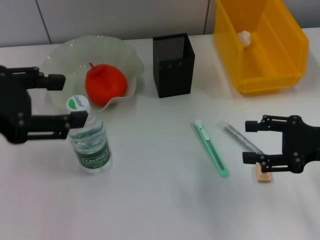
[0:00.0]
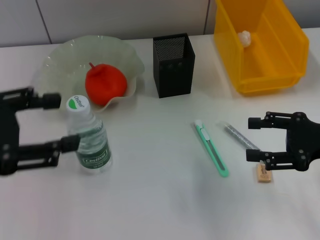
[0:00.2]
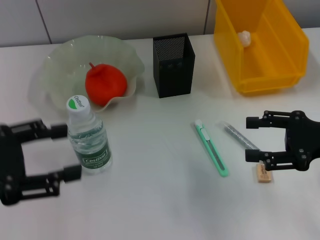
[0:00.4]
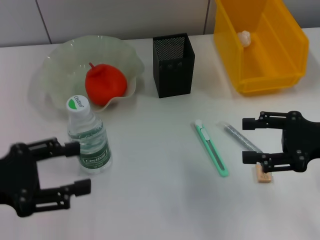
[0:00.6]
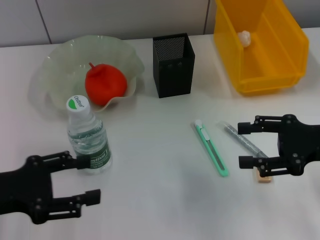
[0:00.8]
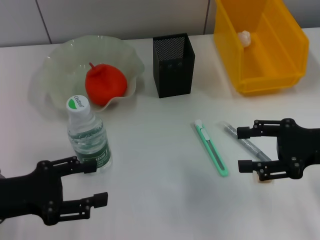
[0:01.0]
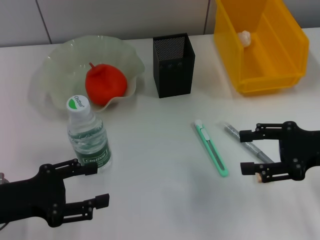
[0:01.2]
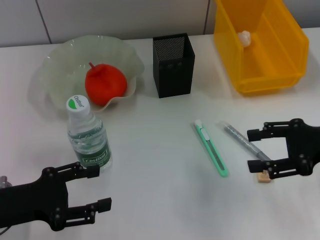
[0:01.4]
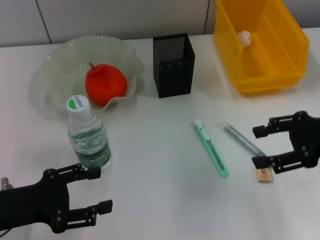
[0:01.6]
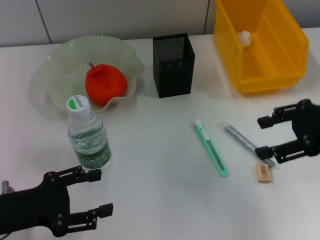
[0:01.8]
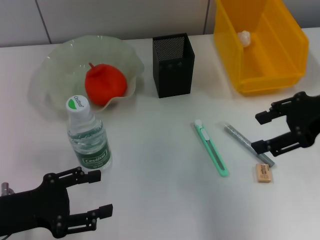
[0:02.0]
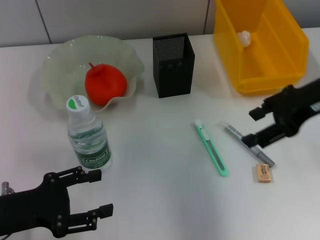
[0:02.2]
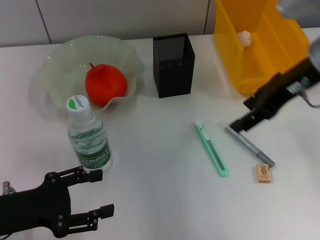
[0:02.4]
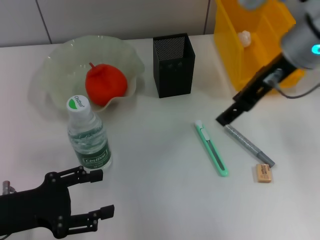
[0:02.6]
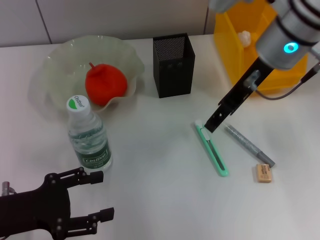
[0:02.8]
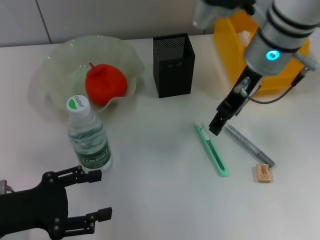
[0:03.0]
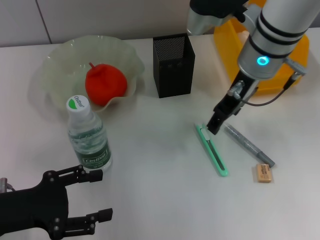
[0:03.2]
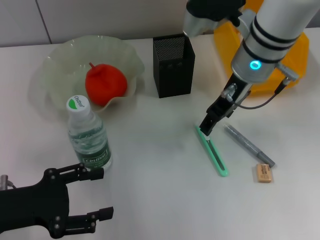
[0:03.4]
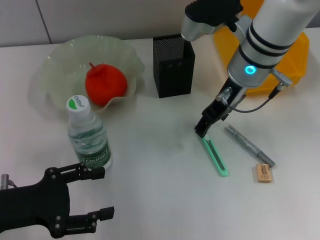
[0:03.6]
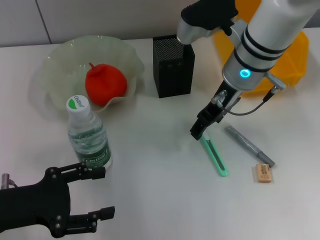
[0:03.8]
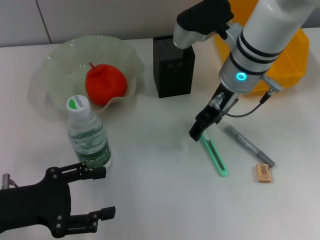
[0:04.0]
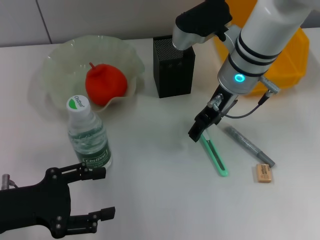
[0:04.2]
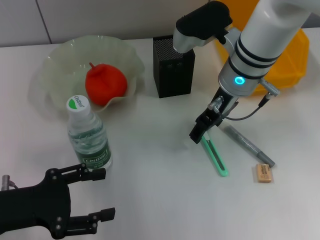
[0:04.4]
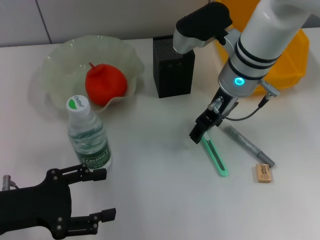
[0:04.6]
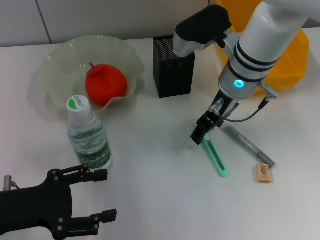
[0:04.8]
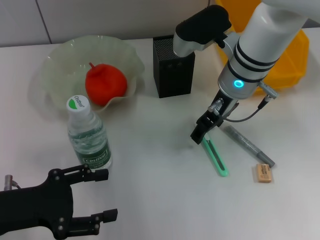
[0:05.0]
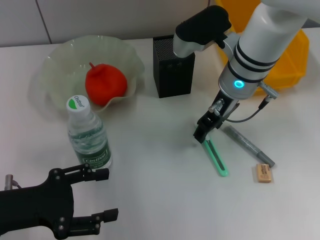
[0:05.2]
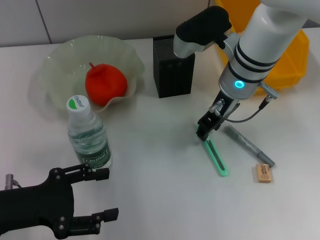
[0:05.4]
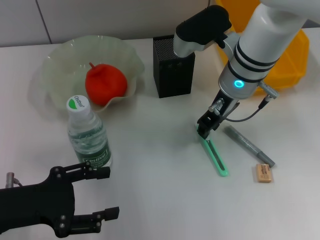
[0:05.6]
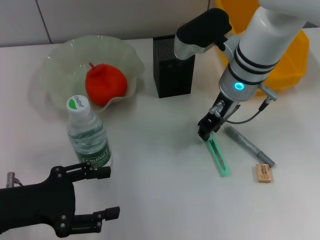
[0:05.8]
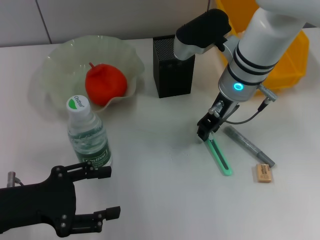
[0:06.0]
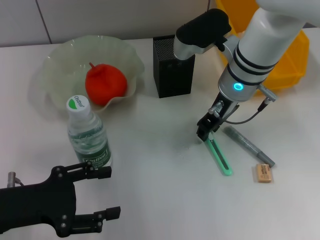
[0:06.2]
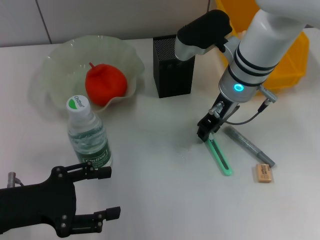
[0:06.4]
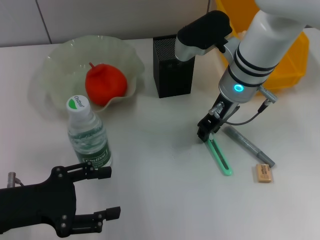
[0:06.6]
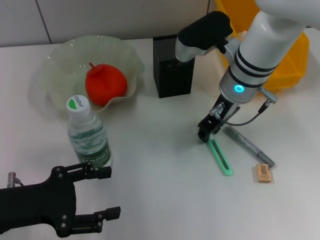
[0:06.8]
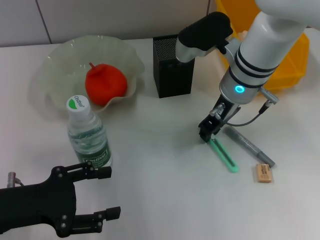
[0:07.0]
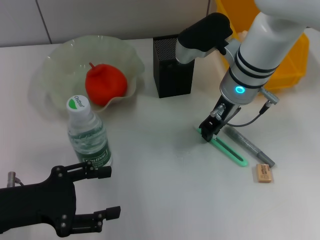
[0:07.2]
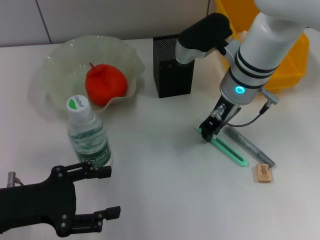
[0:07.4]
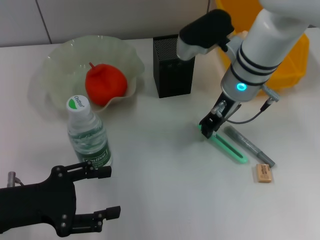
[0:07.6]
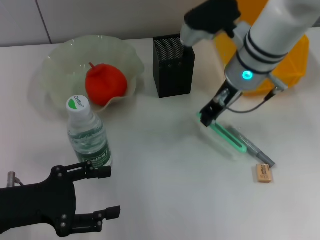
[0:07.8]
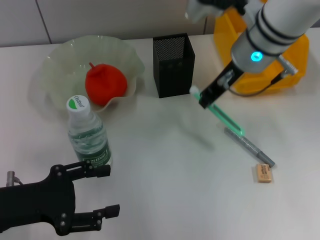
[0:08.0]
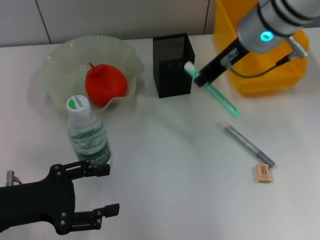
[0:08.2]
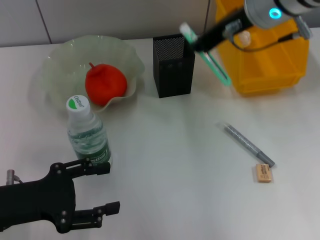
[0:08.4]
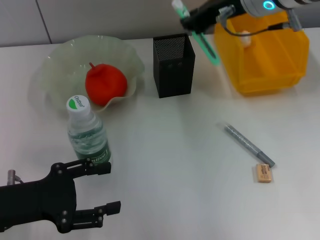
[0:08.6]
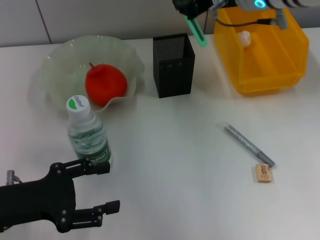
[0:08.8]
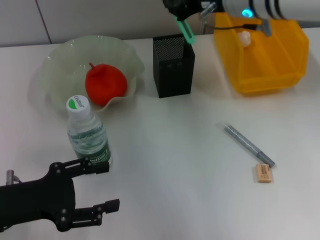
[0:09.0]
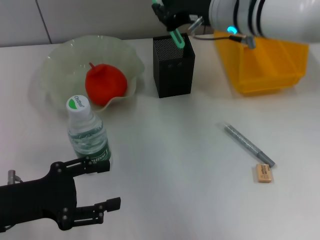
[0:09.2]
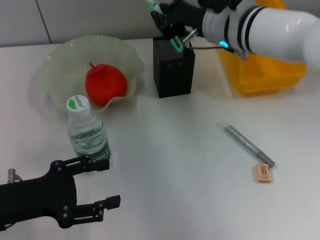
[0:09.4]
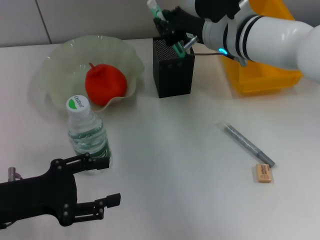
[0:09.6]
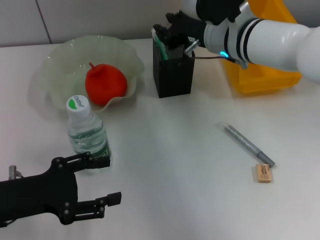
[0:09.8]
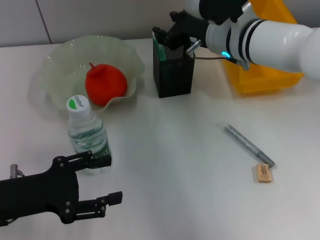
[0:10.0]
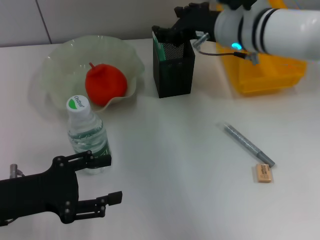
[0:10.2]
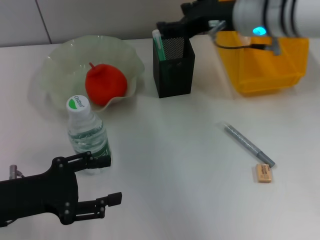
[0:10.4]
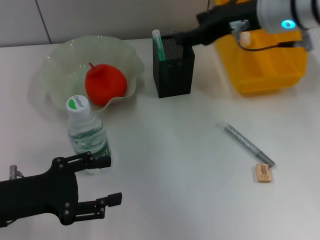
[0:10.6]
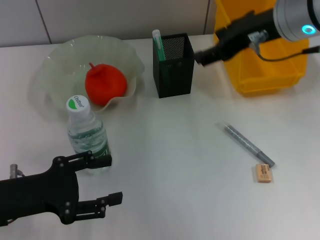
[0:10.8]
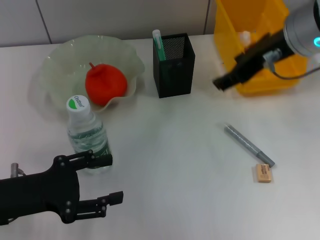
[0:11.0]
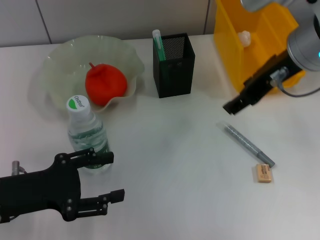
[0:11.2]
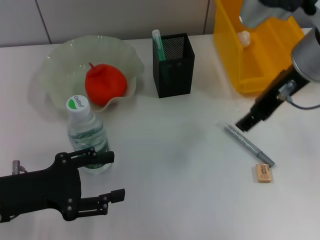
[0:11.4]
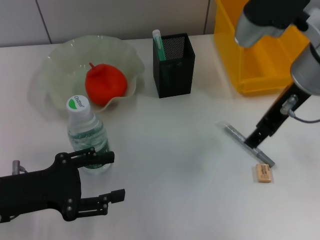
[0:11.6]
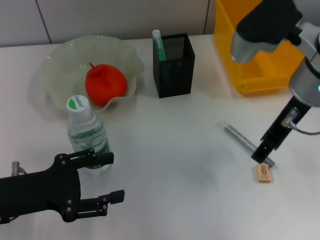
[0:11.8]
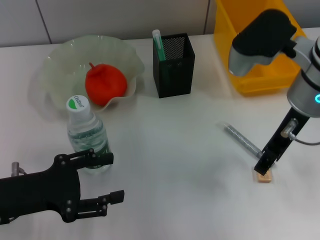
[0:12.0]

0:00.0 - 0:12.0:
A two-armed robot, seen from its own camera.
Step, 0:00.0 - 0:07.2: Grab the blue utility knife with the right hand.
Step, 0:07.4 - 0:10.4: Place the blue utility knife into the pen holder with the right hand.
0:00.0 - 0:01.6: The right gripper heads upward, covering approximately 5 cm; the left gripper is displaced downward by about 20 cm.
0:01.6 - 0:03.0: The right gripper moves to the left and forward, roughly 20 cm.
0:03.0 - 0:04.4: The right gripper is displaced downward by approximately 5 cm.
0:04.4 - 0:06.0: The right gripper closes up.
0:06.0 - 0:07.6: Both grippers stay about where they are.
0:07.6 - 0:09.0: The right gripper moves upward, about 10 cm.
0:09.0 - 0:10.4: The right gripper opens its fingers.
0:10.4 - 0:12.0: The right gripper shifts approximately 5 cm backward.

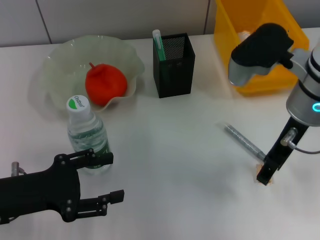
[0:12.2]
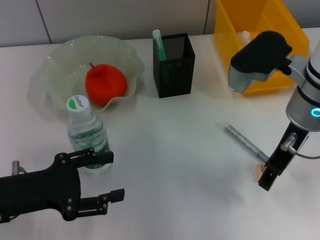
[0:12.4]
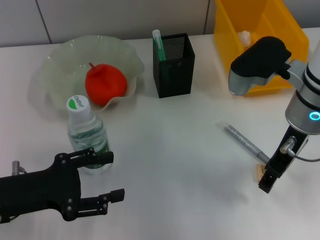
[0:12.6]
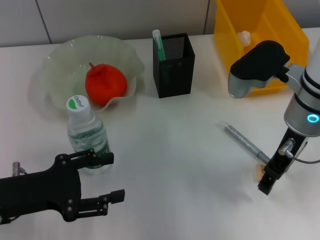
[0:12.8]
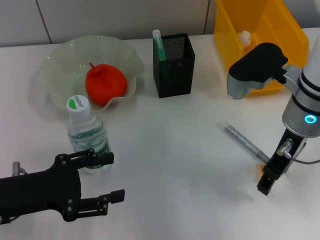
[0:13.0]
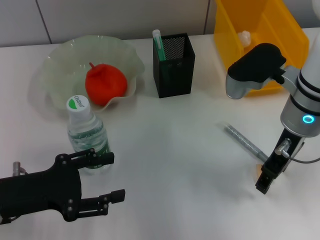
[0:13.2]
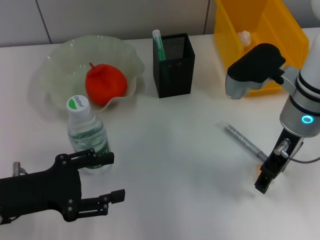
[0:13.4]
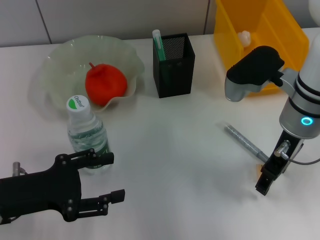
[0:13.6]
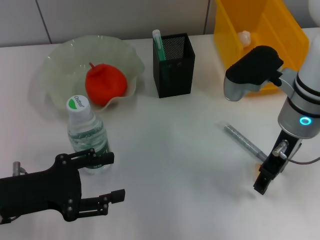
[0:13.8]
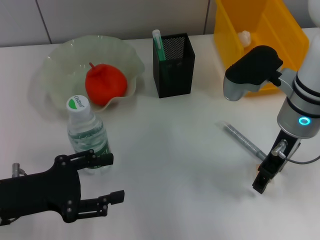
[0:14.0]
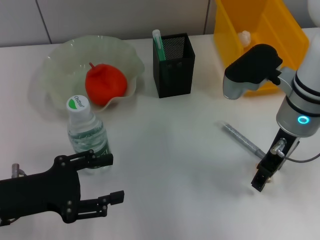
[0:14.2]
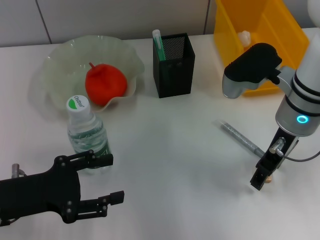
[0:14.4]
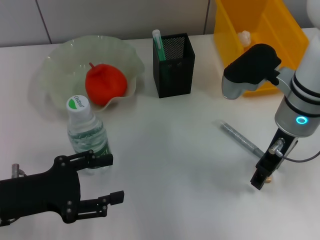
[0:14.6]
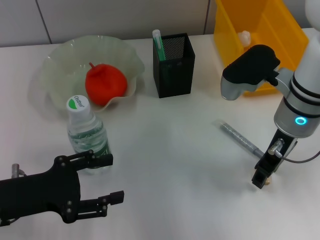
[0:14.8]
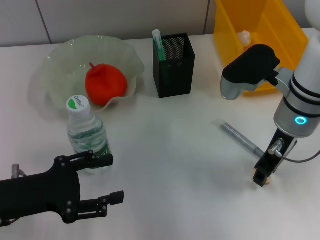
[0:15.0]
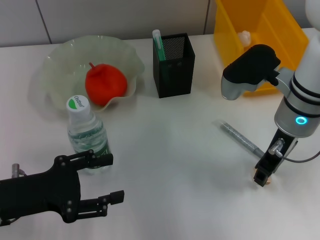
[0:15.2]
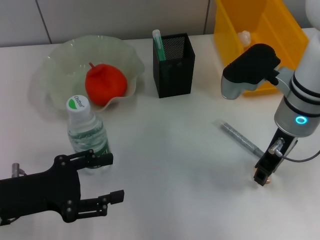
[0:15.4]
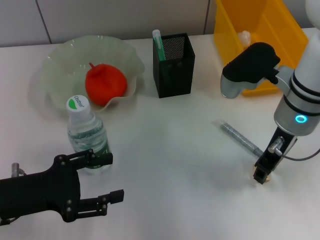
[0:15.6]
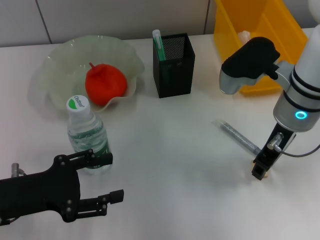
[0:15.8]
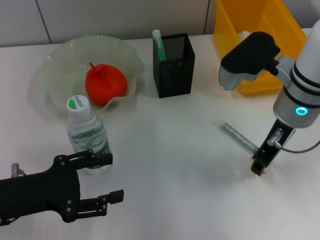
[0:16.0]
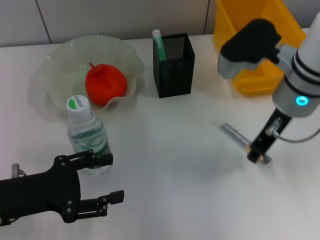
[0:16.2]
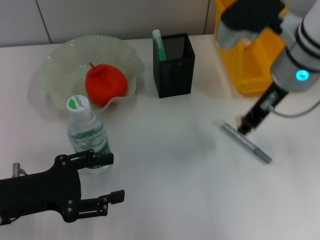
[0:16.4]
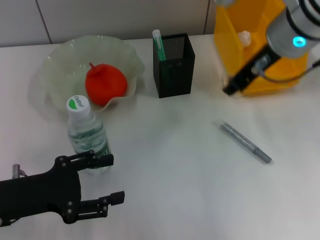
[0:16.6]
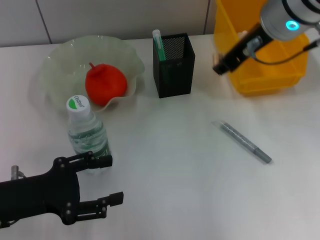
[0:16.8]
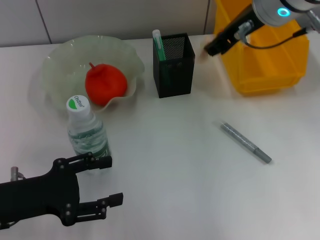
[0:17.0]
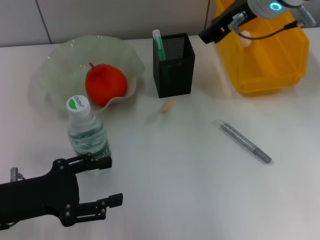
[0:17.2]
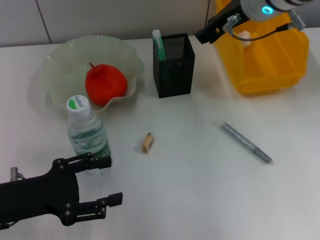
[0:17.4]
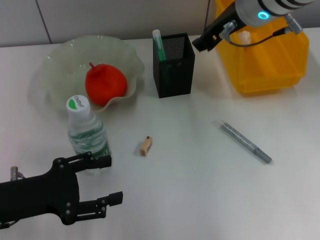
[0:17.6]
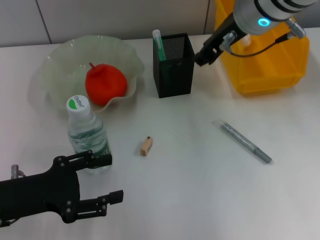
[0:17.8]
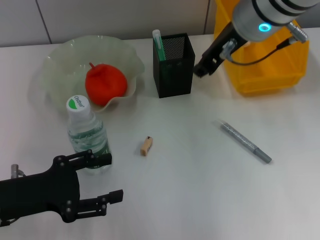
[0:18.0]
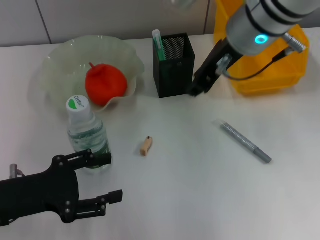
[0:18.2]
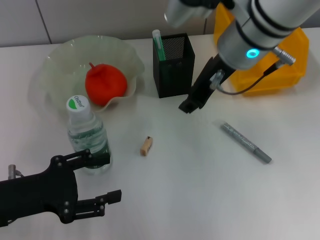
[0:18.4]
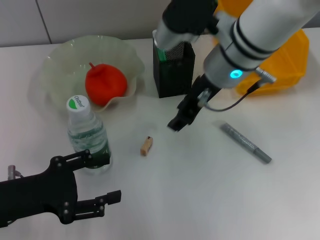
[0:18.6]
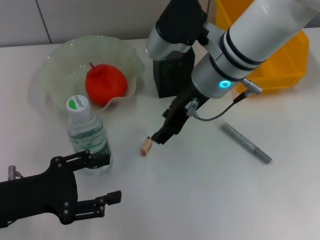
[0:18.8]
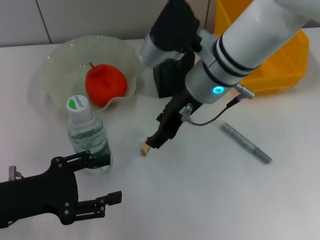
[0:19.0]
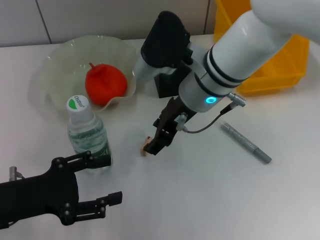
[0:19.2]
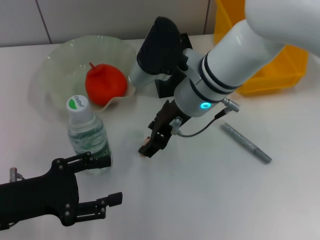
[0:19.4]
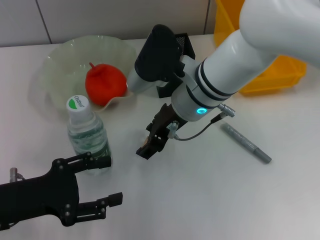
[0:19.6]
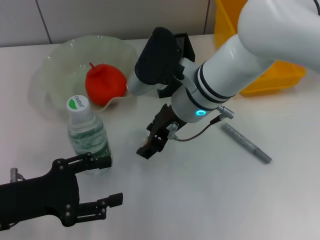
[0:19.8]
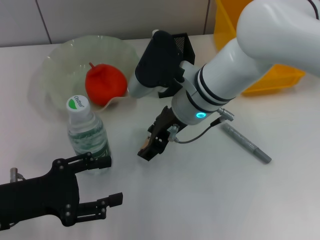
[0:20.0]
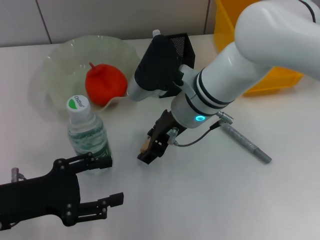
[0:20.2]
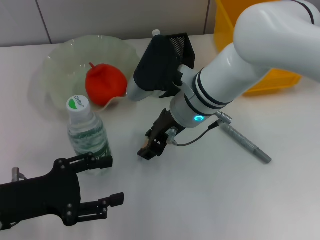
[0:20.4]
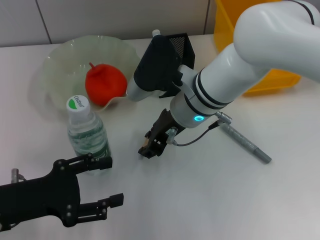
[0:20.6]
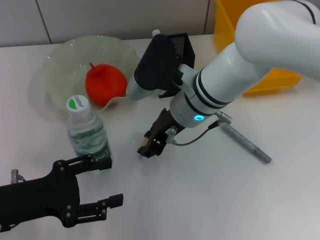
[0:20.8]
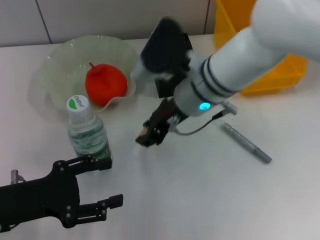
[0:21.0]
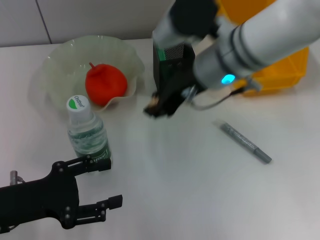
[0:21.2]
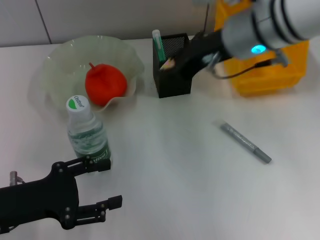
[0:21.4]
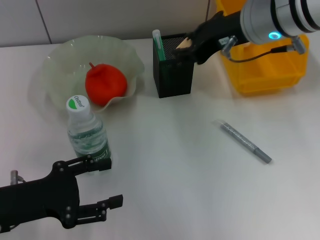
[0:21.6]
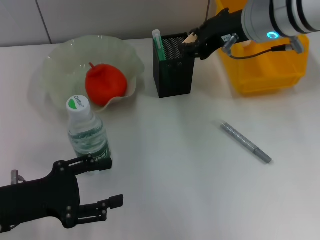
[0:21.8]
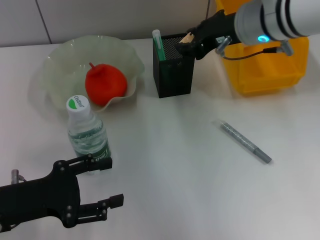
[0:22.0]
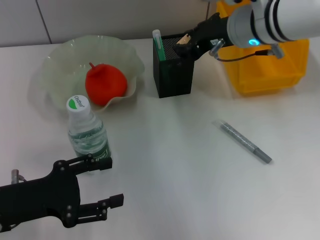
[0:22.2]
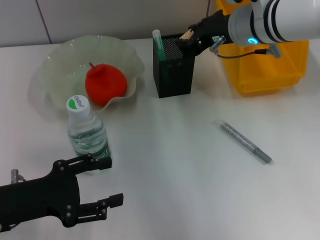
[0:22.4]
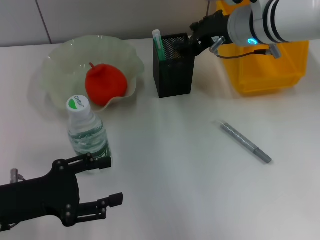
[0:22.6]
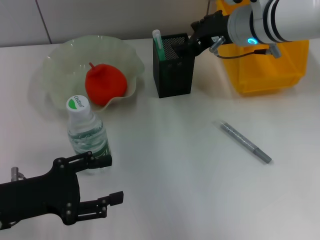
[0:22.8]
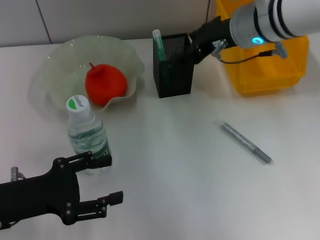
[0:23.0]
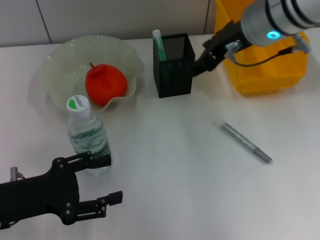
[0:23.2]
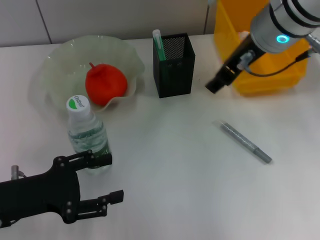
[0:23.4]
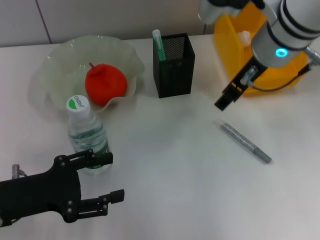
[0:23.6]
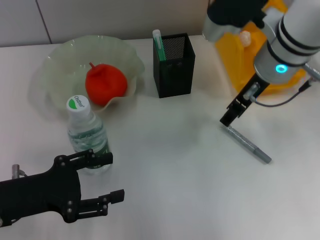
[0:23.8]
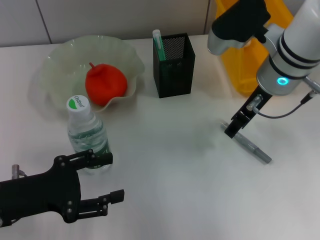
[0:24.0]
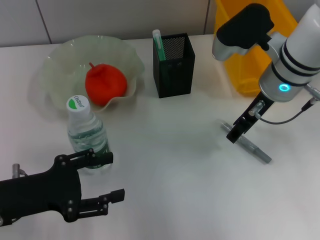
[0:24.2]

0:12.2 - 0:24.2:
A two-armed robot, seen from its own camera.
Step, 0:12.2 - 0:20.6: Grab the eraser with the right hand.
Step, 0:20.8 - 0:22.8: Put the eraser into the pen holder with the right hand.
0:12.2 - 0:13.8: The grippers move only a little.
0:13.8 - 0:15.2: The right gripper closes.
0:15.2 - 0:16.6: The right gripper goes roughly 10 cm upward.
0:16.6 - 0:18.2: The grippers stay close to where they were, moving slightly.
0:18.2 - 0:19.8: The right gripper goes roughly 10 cm downward and to the left, and opens its fingers.
0:19.8 - 0:21.2: The right gripper moves upward, about 5 cm, and closes its fingers.
0:21.2 - 0:22.6: The right gripper goes approximately 5 cm to the right.
0:22.6 - 0:24.2: The right gripper goes upward and returns, some 5 cm each way, and opens up.
